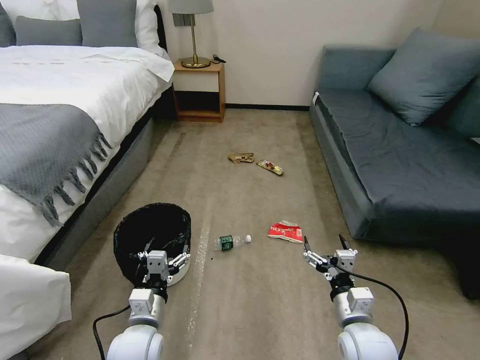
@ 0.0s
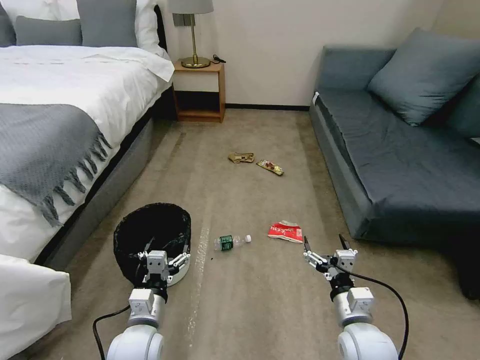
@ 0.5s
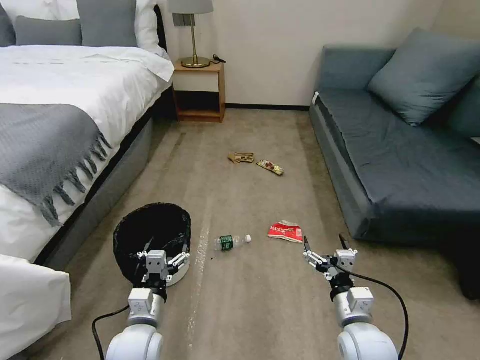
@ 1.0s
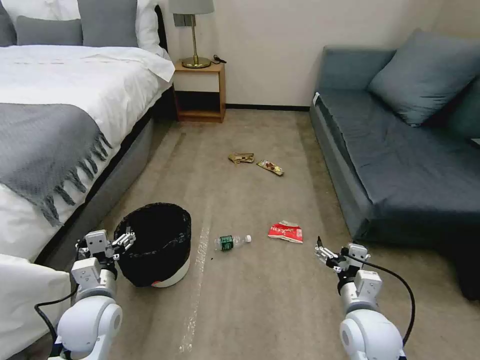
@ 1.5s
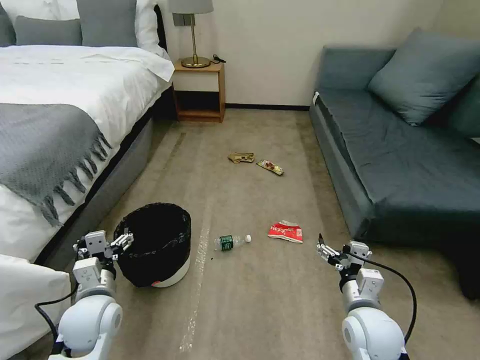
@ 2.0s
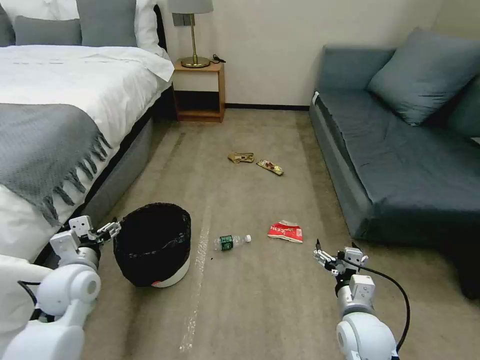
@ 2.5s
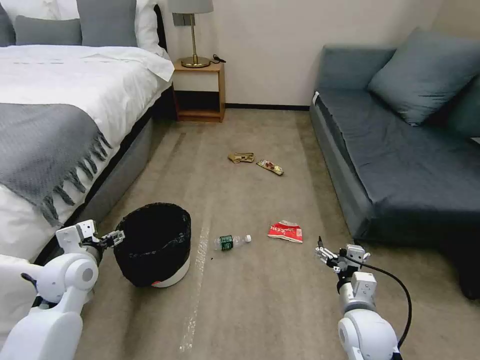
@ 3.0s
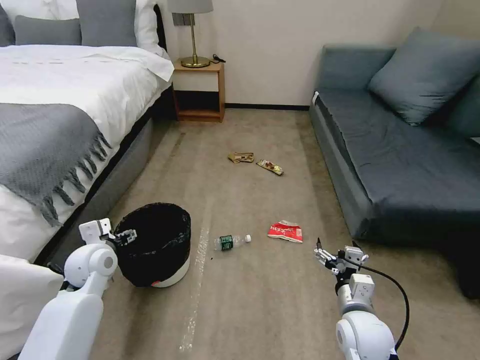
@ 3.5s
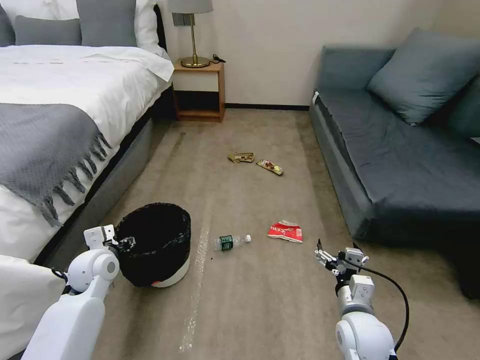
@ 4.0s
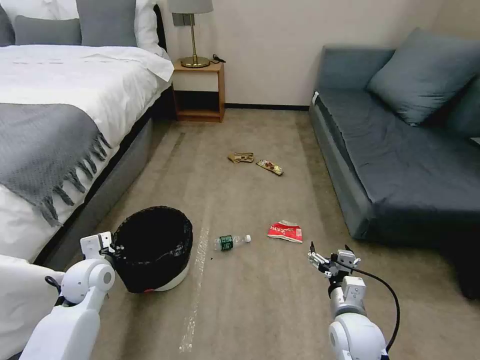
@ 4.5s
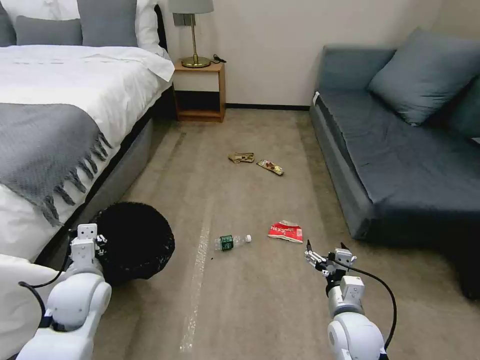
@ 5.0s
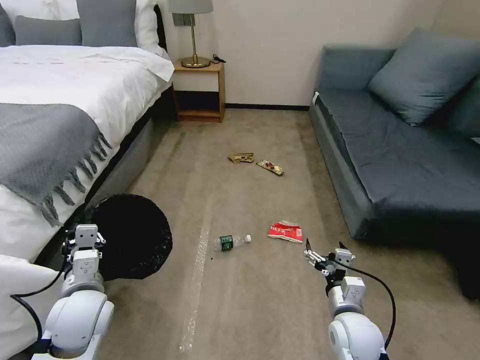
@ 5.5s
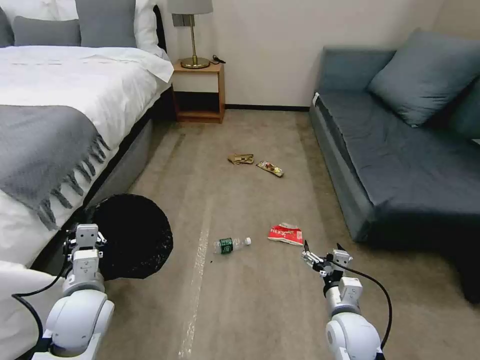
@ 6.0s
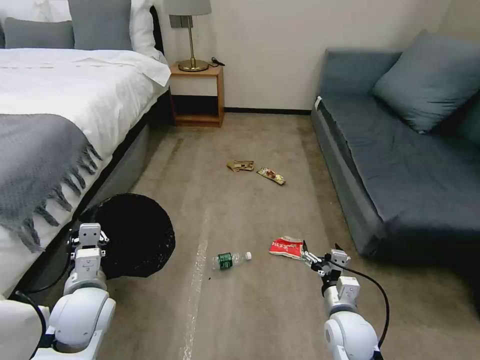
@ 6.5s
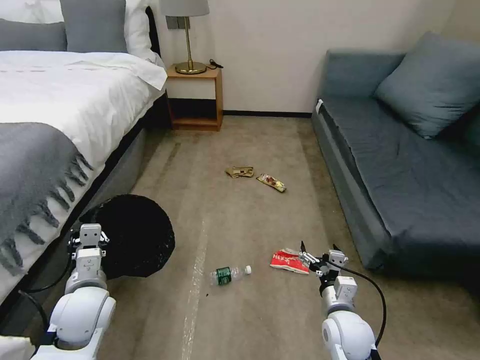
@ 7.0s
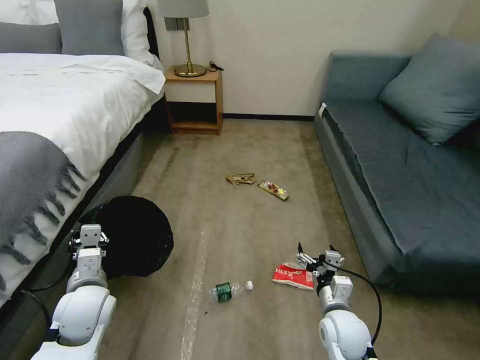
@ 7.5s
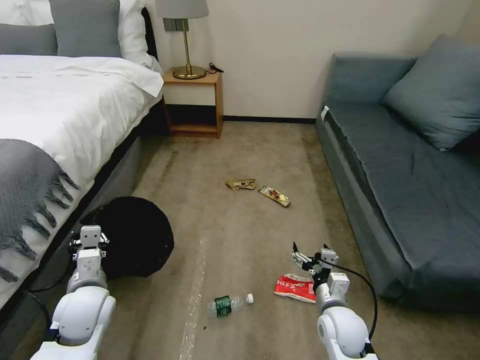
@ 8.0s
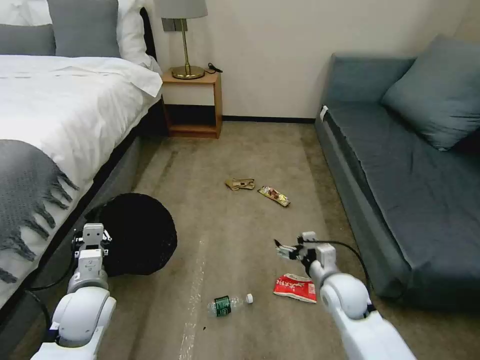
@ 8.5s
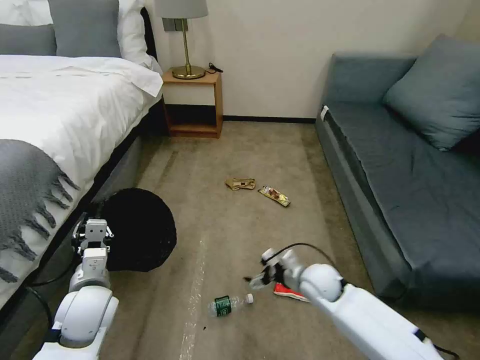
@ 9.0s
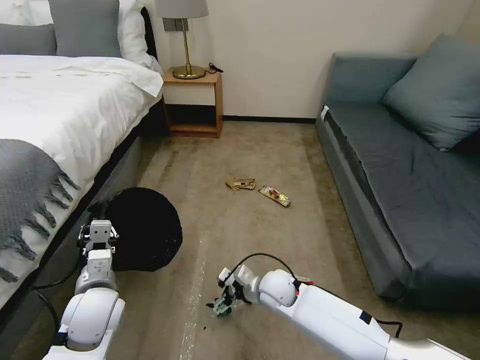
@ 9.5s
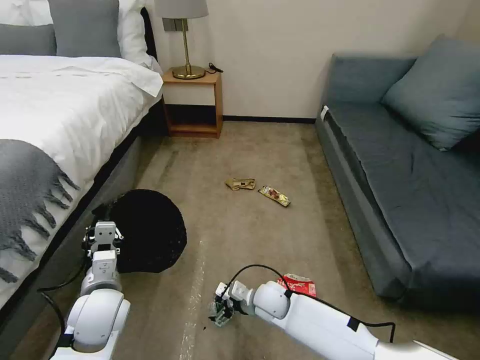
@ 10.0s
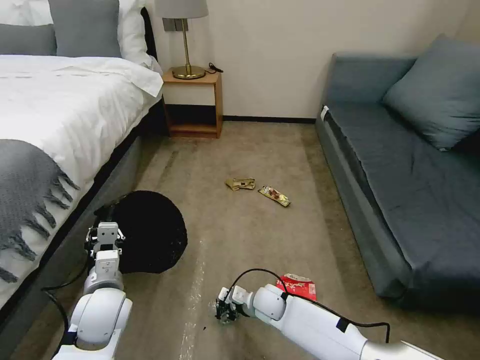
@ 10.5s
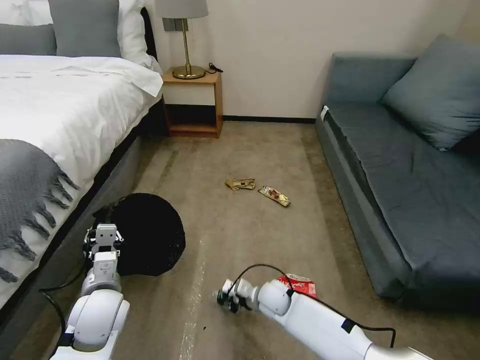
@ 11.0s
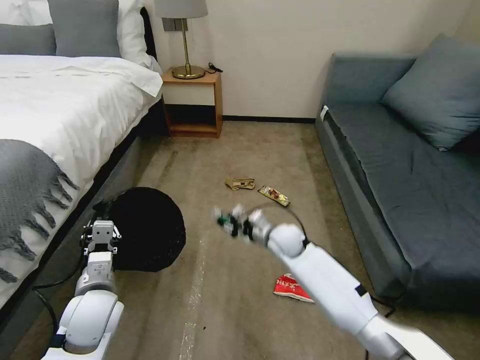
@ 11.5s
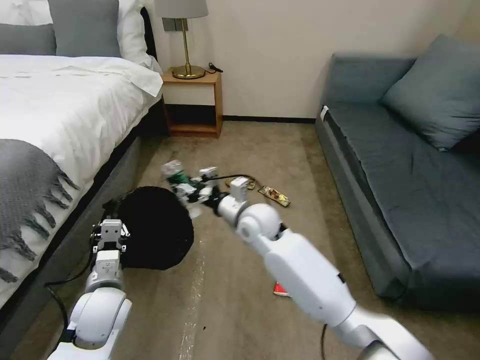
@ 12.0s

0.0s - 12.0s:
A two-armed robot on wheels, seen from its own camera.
Task of the whole recording: Pick up the trash bin, then pick up the garbage on the floor and place it into the trash bin.
2.0s - 4.0s: The left gripper moves forward, approximately 10 cm, and closes its fingers.
4.0s - 6.0s: The left gripper shifts approximately 10 cm backward, and closes.
8.0s - 10.0s: The right gripper goes about 15 cm to the left and forward.
10.0s - 12.0s: The right gripper shifts roughly 25 cm upward and forward, and closes up.

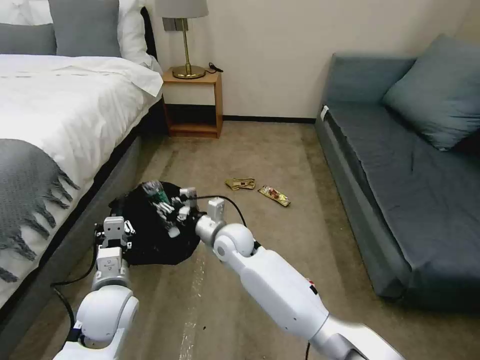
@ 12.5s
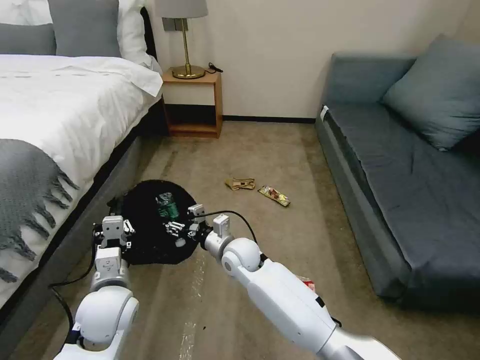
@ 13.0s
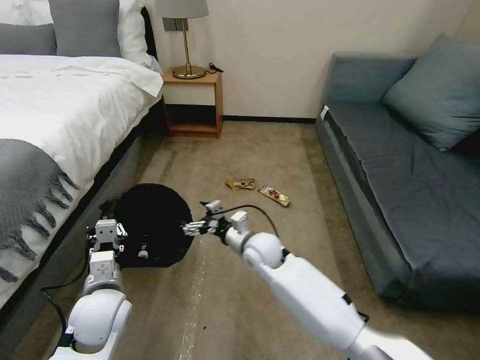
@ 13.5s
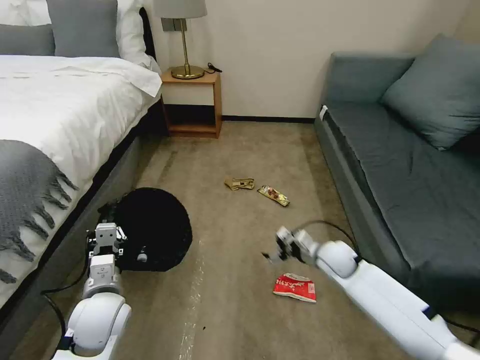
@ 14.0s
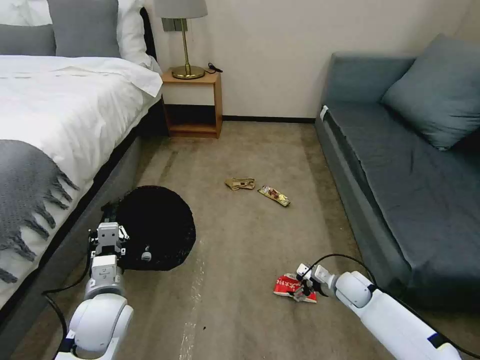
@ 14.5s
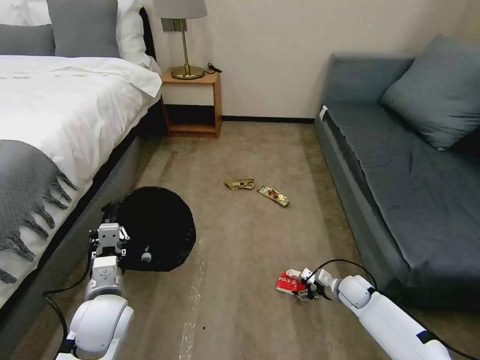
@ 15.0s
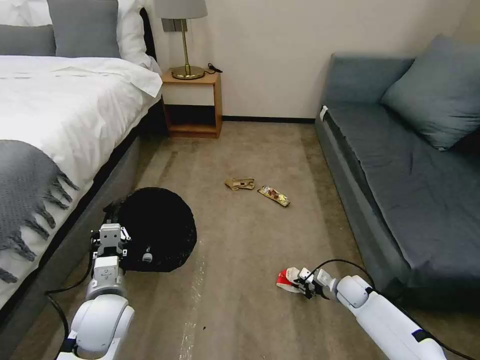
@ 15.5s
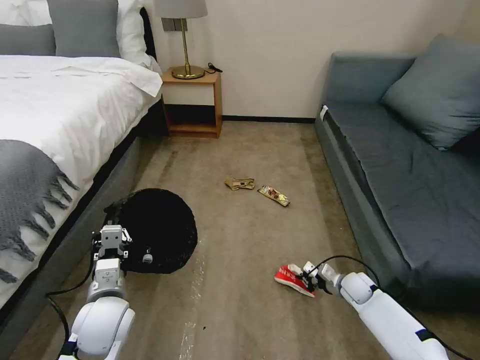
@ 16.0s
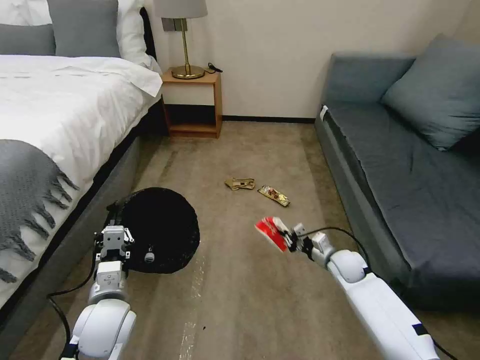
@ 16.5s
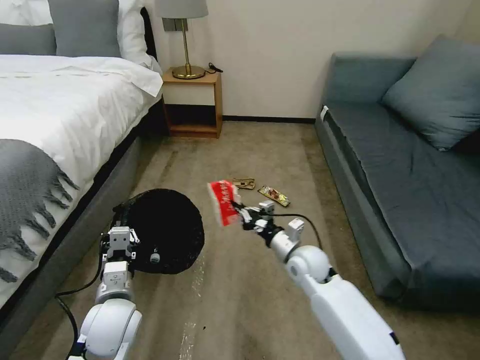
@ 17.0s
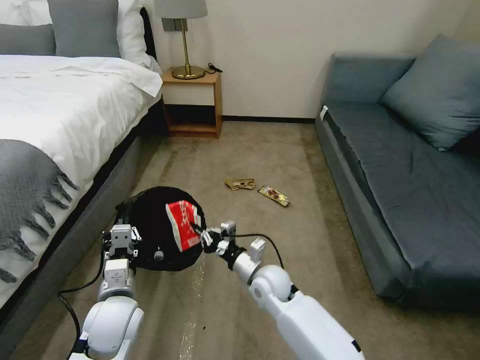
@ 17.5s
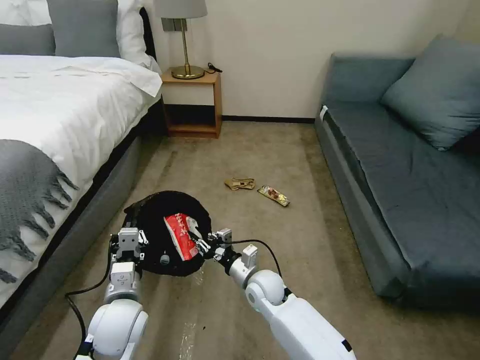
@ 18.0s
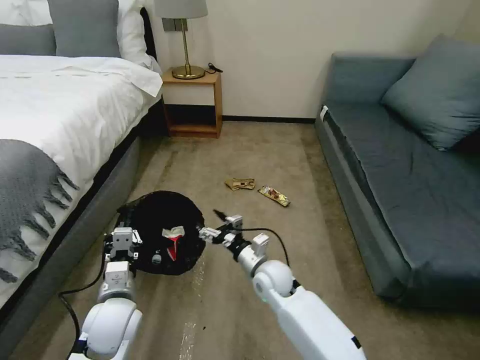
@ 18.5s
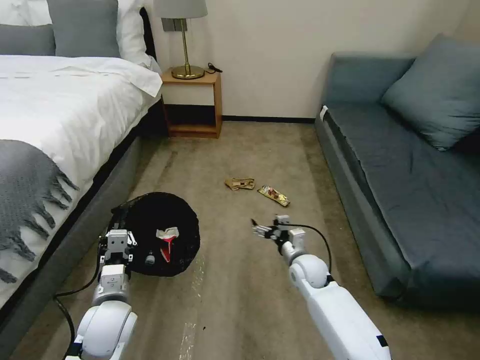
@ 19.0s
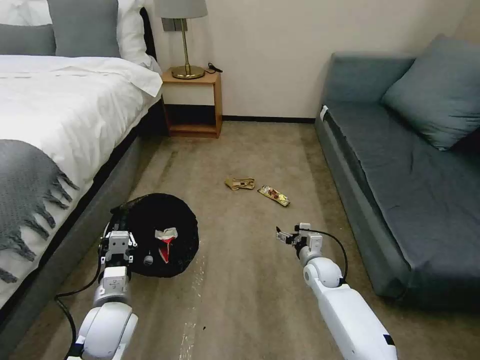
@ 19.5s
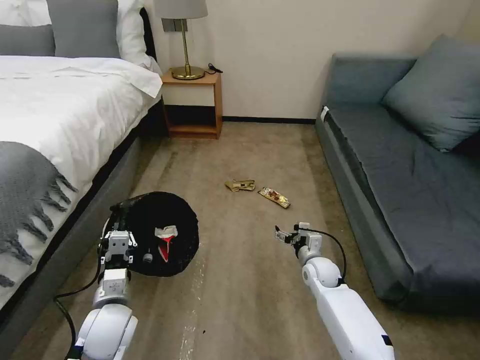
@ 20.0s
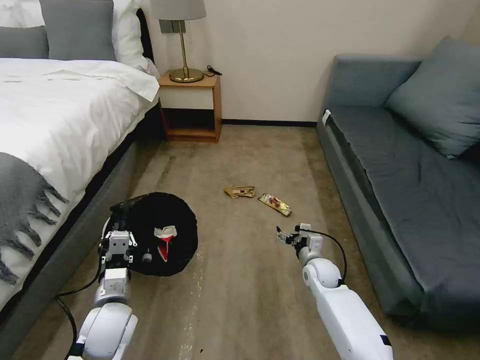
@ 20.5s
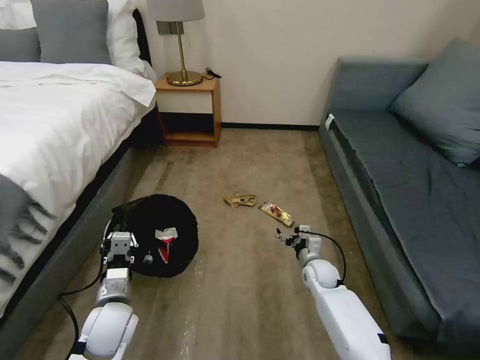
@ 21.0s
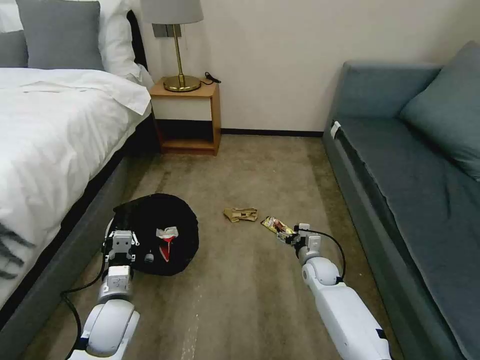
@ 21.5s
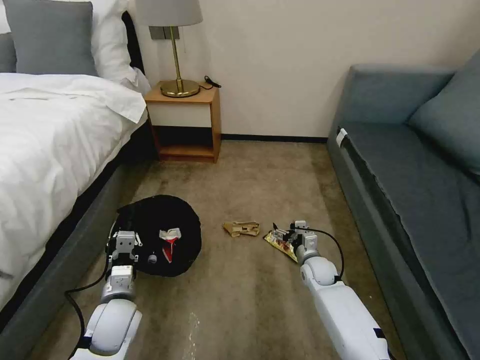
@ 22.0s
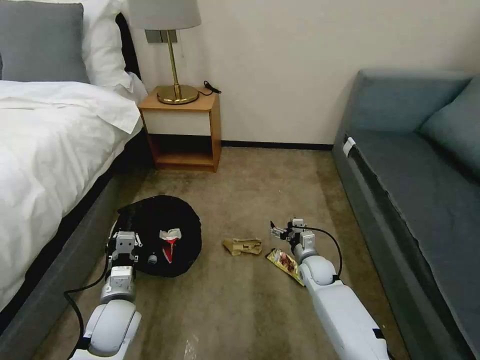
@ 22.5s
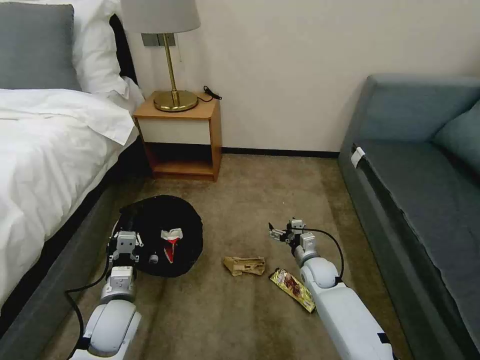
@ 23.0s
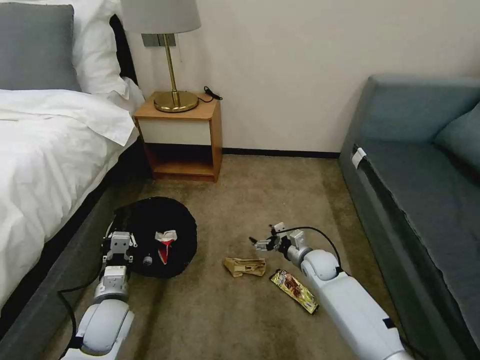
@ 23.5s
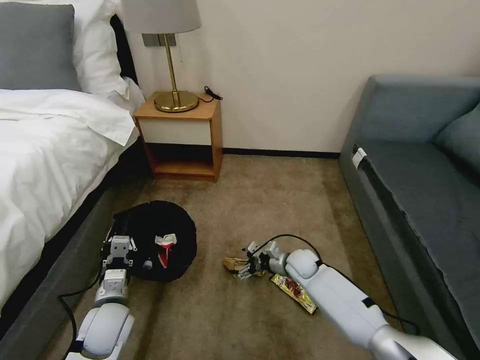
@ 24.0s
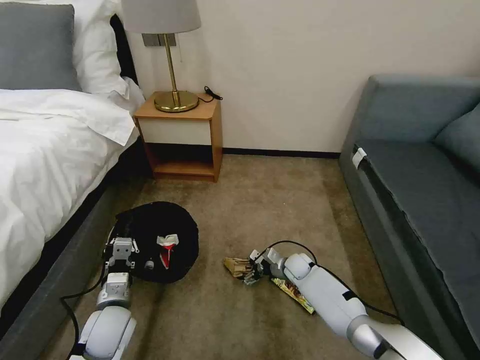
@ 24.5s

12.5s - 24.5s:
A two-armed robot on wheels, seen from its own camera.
Task of the whole recording: Pick up the trash bin, then pick up the garbage on the floor and place it into the trash bin.
12.5s - 14.5s: The right gripper heads to the right and downward, covering approximately 40 cm, and opens its fingers.
14.5s - 16.5s: The right gripper moves approximately 5 cm, and closes its fingers.
16.5s - 18.5s: The right gripper is displaced to the left by about 20 cm, and opens.
18.5s - 20.5s: The right gripper travels to the right and downward by roughly 15 cm.
22.5s - 24.5s: The right gripper travels downward by some 5 cm.

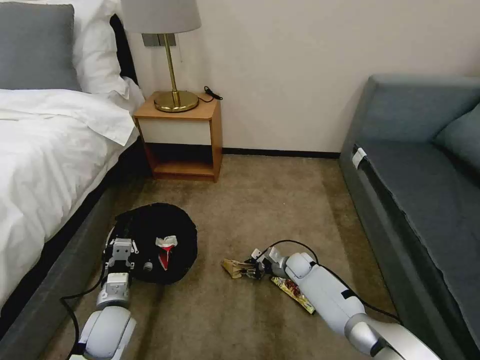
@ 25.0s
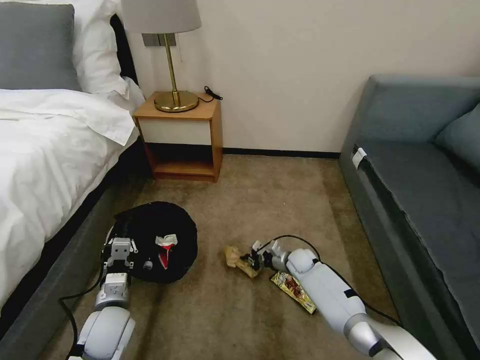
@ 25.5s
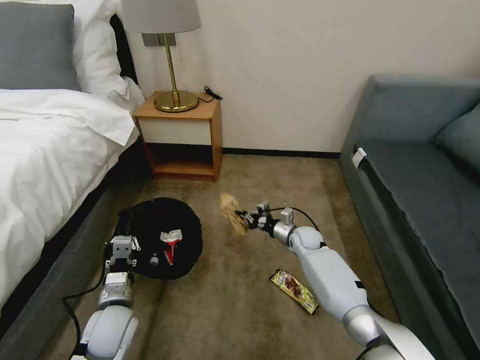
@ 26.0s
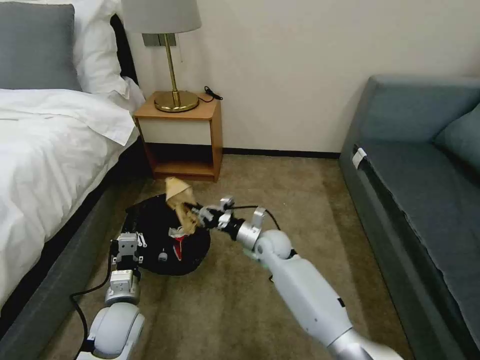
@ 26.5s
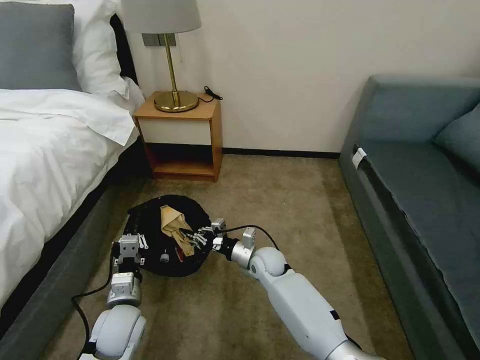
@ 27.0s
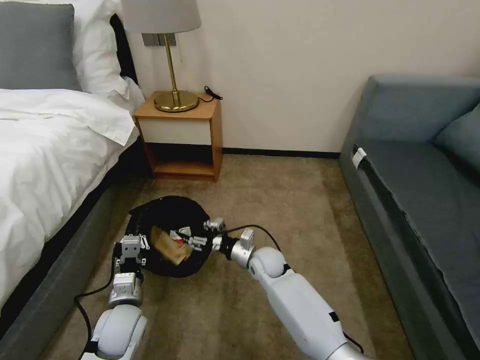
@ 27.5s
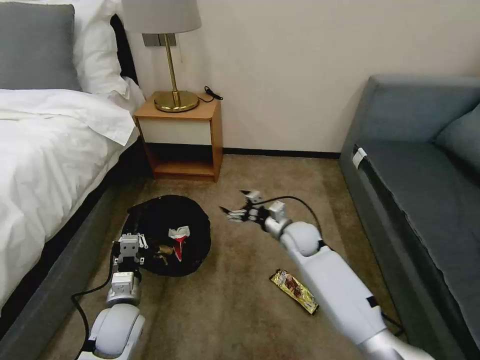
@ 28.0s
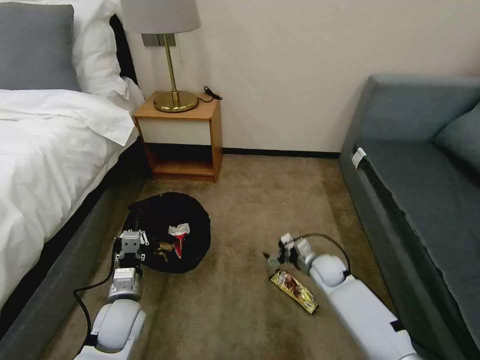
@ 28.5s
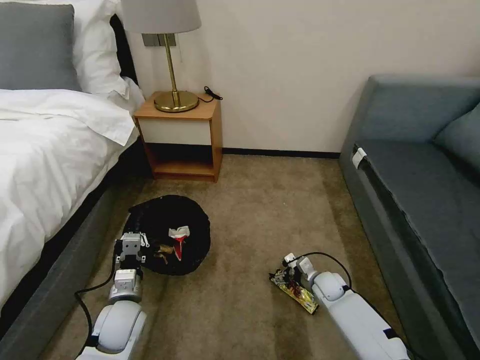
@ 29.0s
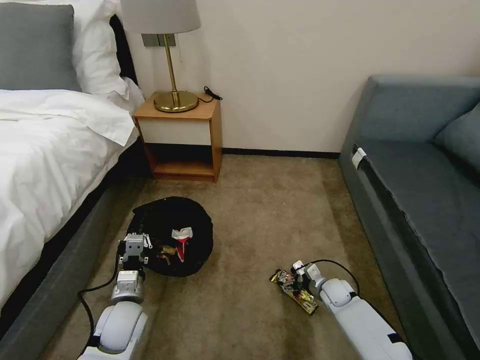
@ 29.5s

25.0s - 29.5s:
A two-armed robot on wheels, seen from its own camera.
Task of the whole recording: Pick up the trash bin, then pick up the garbage on the floor and place it into the trash bin.
25.0s - 27.0s: The right gripper goes about 15 cm to the left and upward.
27.0s - 29.5s: The right gripper goes about 25 cm to the right and downward, and opens its fingers.
